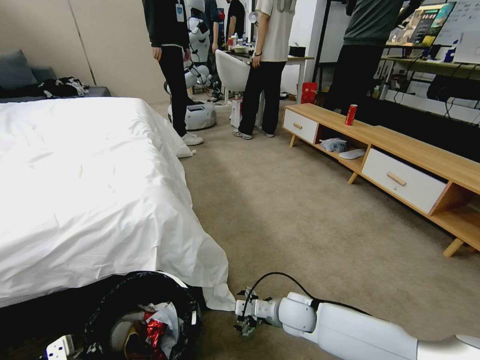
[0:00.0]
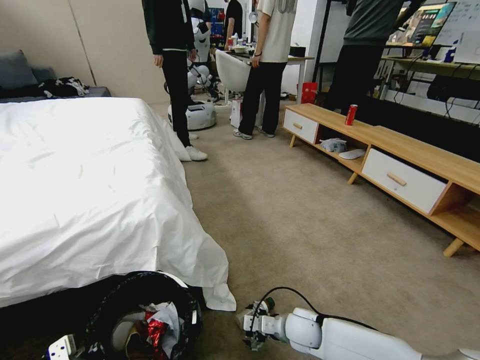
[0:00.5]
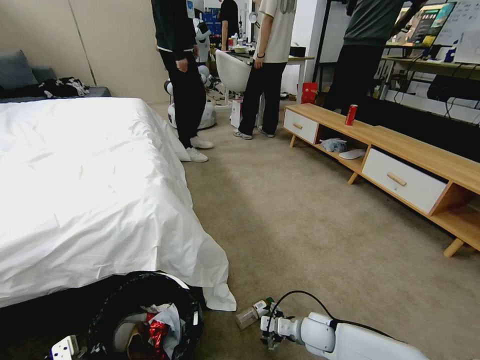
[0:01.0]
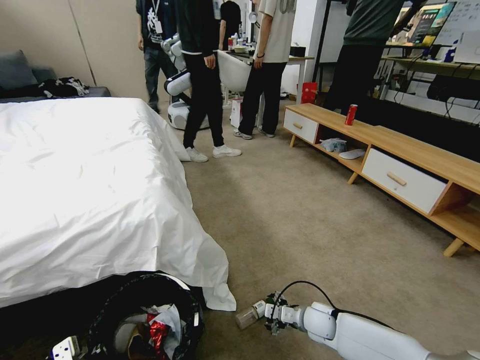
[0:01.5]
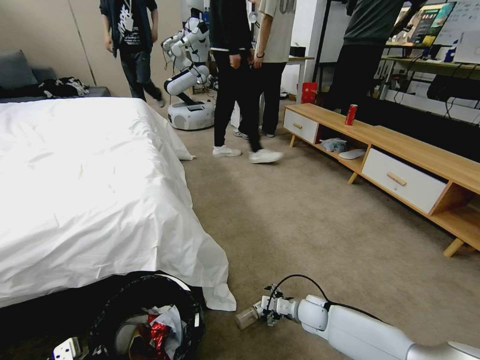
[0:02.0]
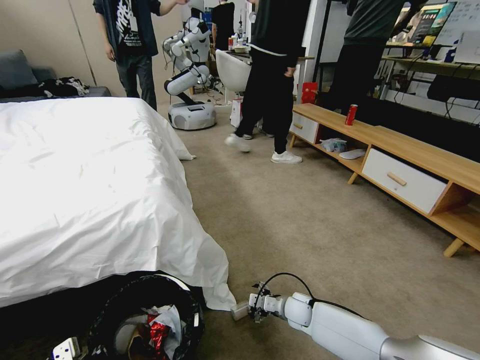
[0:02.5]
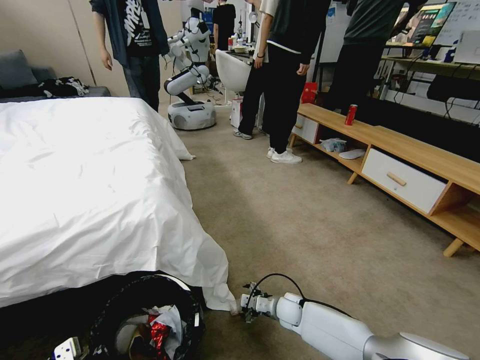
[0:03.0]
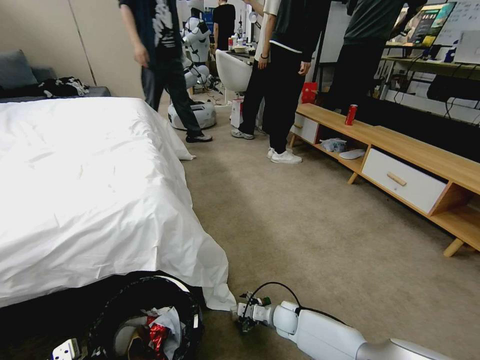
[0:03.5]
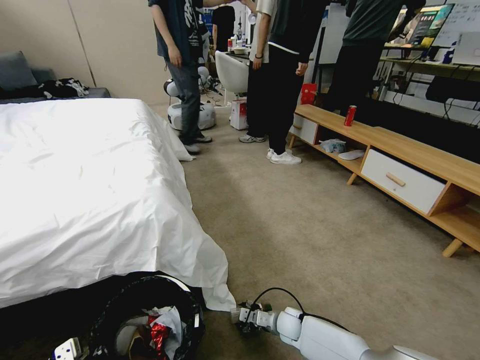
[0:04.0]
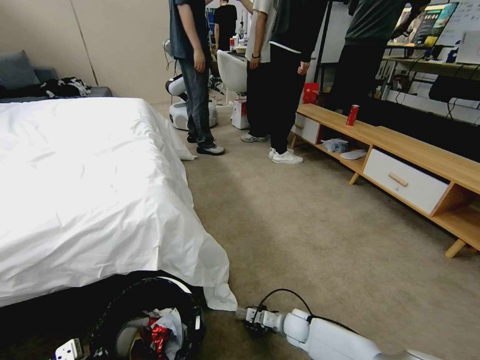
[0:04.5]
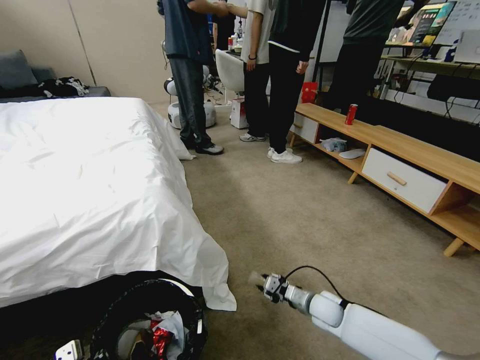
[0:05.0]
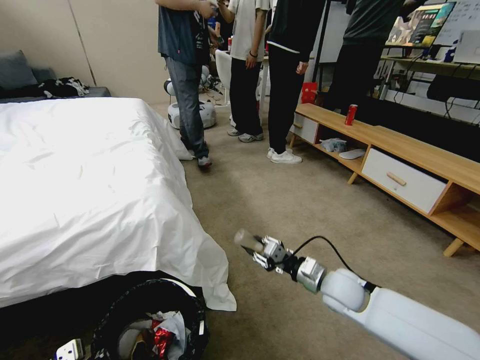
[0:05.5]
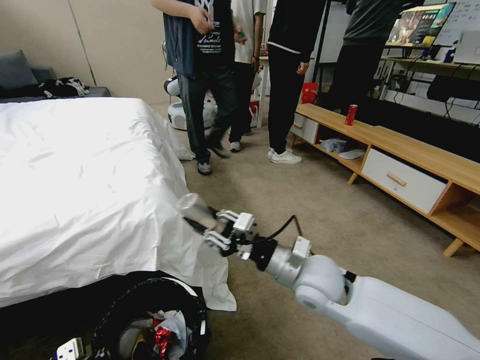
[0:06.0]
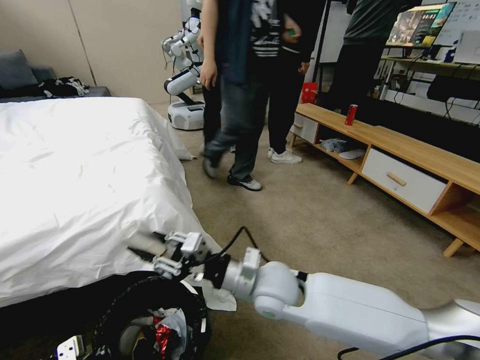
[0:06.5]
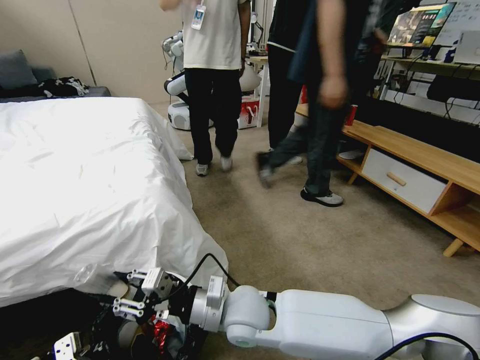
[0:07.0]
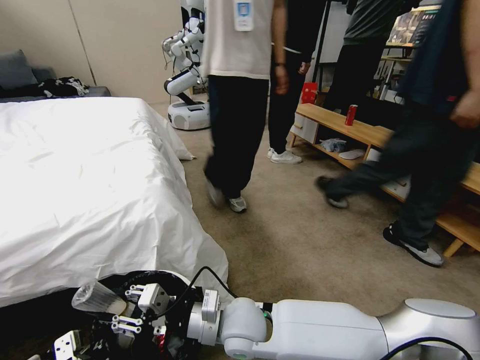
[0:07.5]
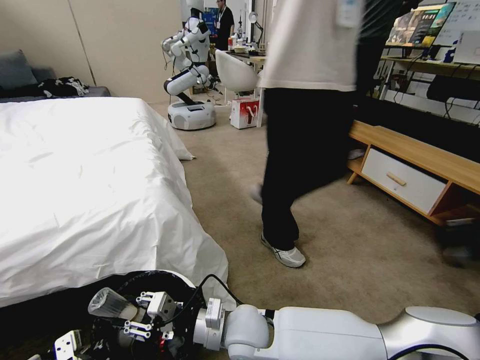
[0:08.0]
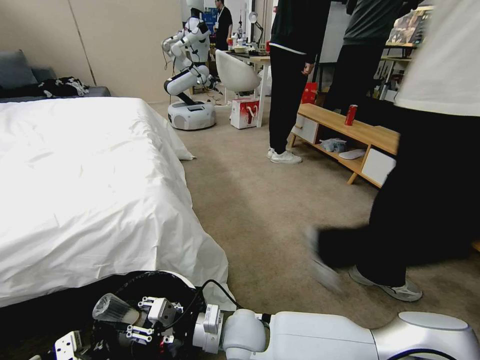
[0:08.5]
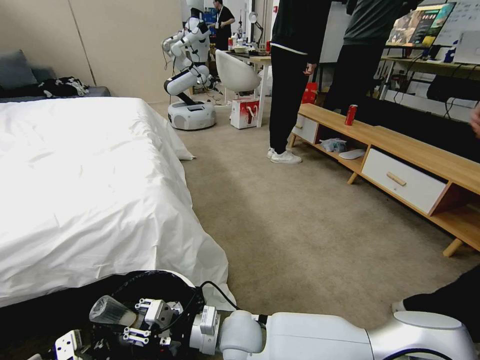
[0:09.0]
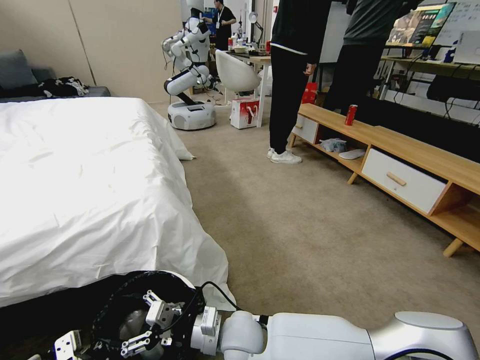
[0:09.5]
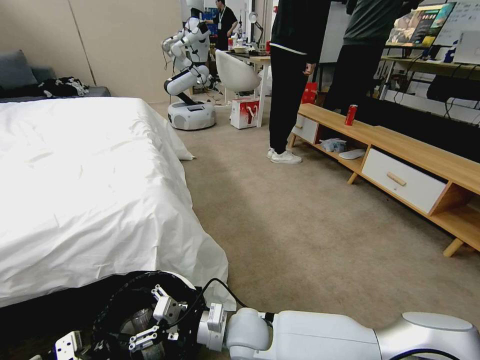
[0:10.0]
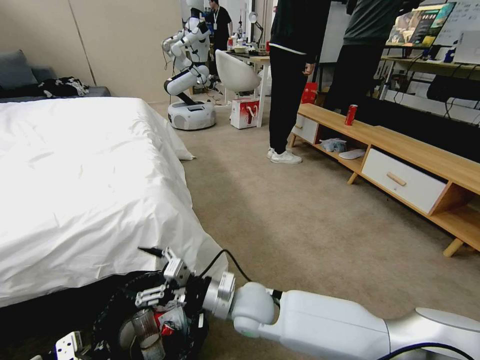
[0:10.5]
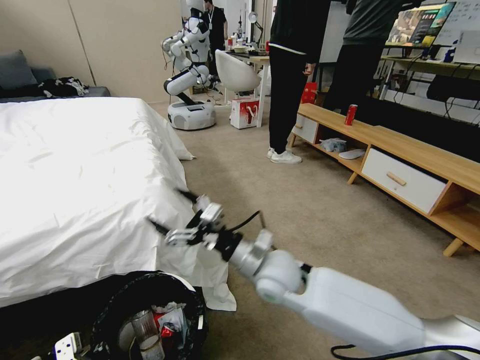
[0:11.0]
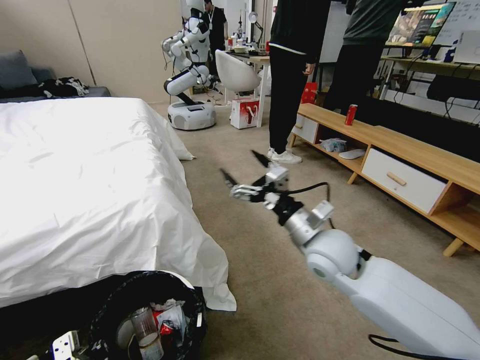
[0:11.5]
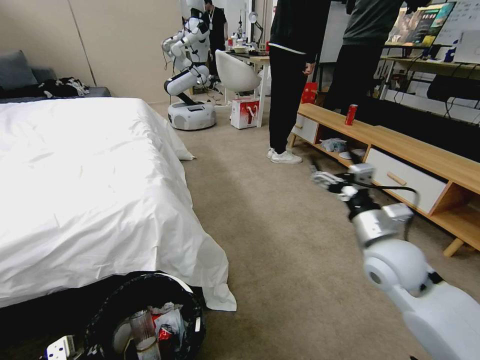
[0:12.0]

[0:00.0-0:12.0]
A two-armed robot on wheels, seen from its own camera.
Task of the whole recording: Pick up the trash bin, then pick up the garbage from the floor and place it into the trash bin.
0:00.0 to 0:02.0: The right gripper shifts roughly 10 cm to the right and downward.
0:02.0 to 0:04.0: The right gripper heads downward and to the left, covering approximately 10 cm, and closes up.
0:04.0 to 0:06.0: The right gripper goes approximately 35 cm upward.
0:06.0 to 0:08.0: The right gripper is displaced to the left and downward by about 20 cm.
0:08.0 to 0:10.0: The right gripper opens.
0:10.0 to 0:12.0: The right gripper heads to the right and upward, covering roughly 30 cm.

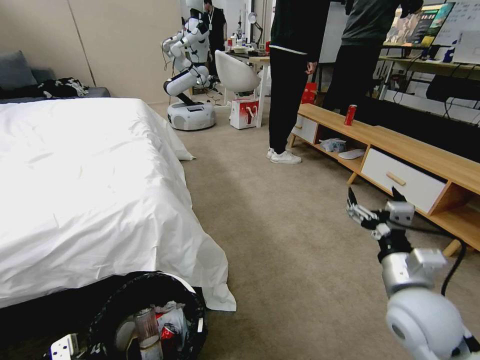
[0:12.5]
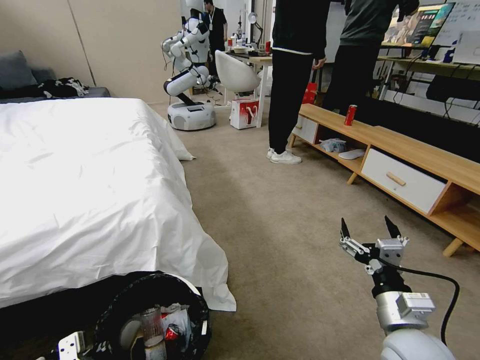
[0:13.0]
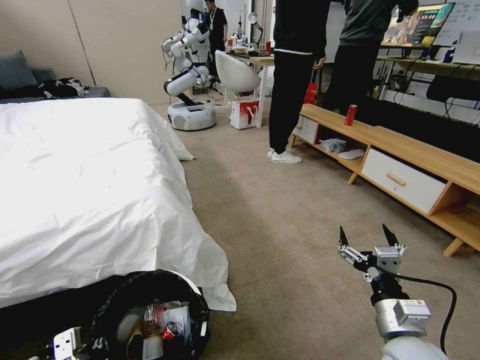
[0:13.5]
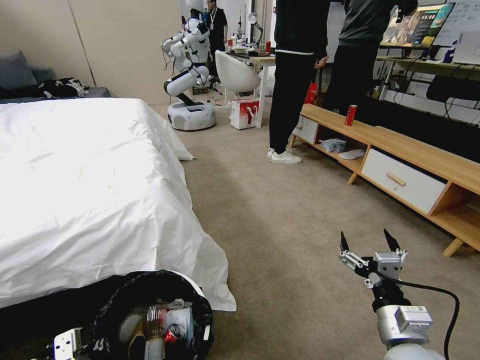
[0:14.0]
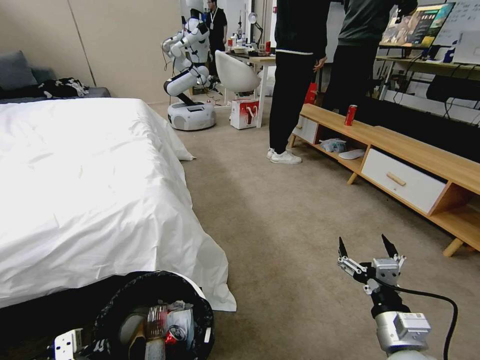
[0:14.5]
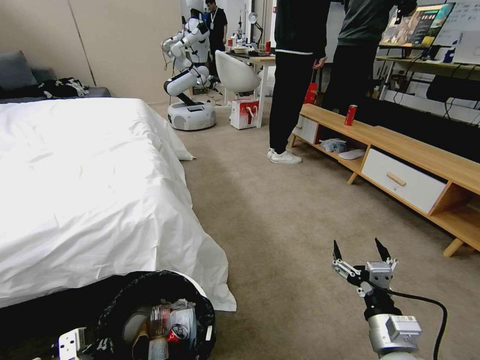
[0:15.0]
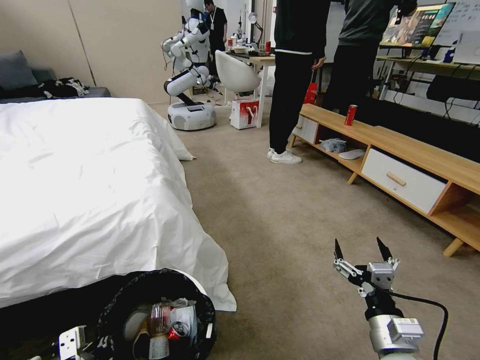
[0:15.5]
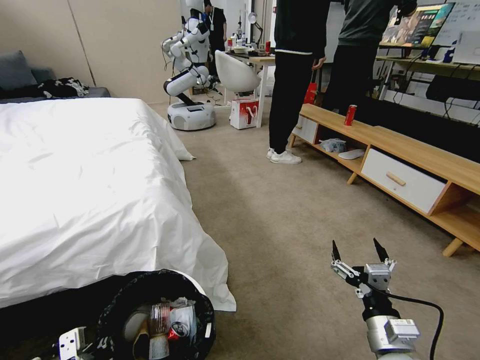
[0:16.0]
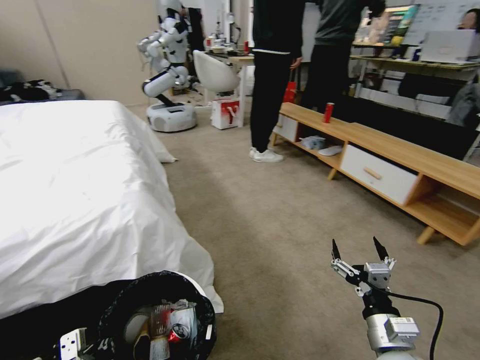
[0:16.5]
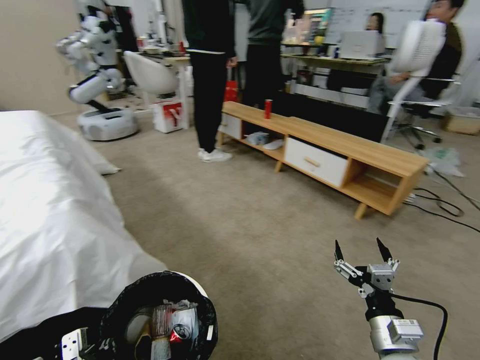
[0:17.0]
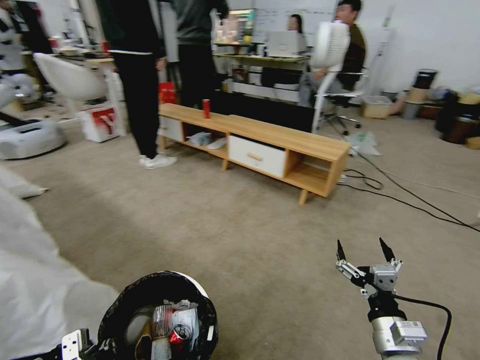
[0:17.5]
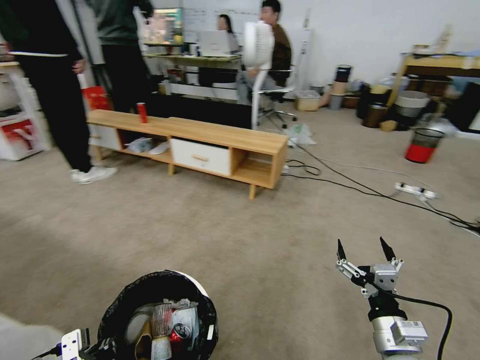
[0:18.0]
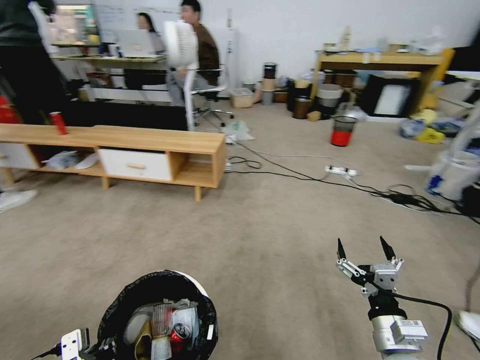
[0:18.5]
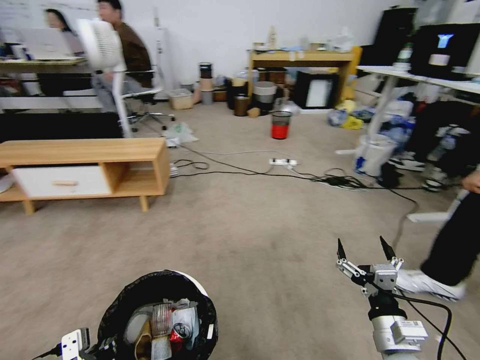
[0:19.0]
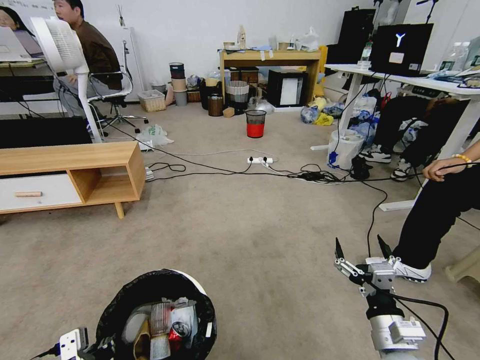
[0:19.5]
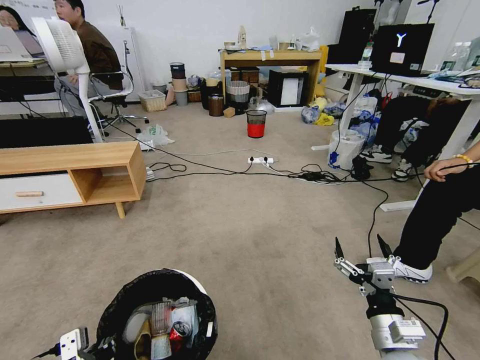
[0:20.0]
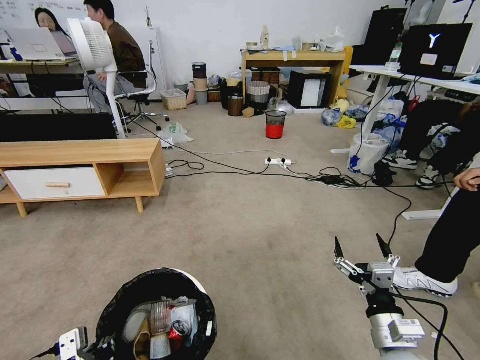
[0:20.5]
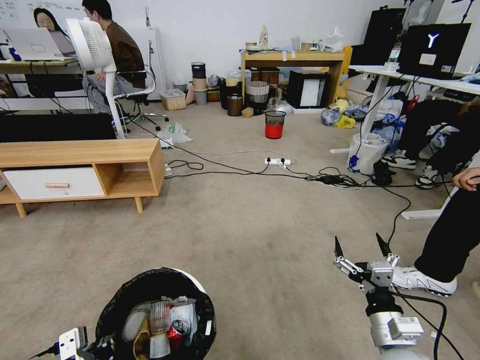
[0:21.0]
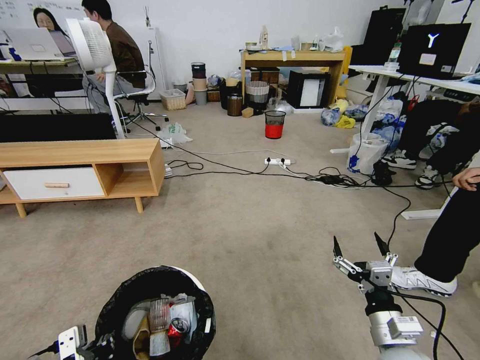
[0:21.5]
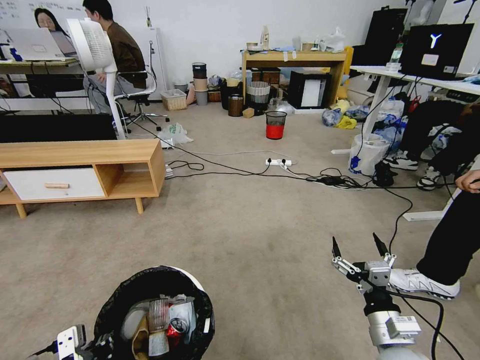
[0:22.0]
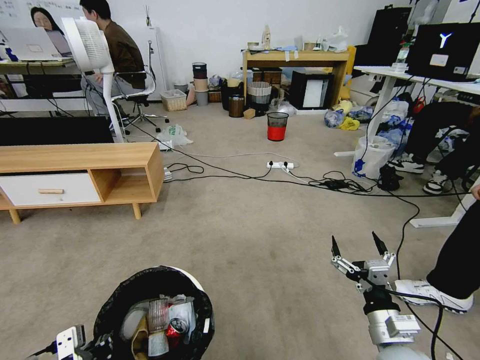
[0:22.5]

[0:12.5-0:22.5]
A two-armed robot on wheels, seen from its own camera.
Task of the whole recording: Pick up the trash bin, then pick up the garbage from the floor and place it into the trash bin.
0:12.5 to 0:14.5: The right gripper is displaced downward and backward by approximately 10 cm.

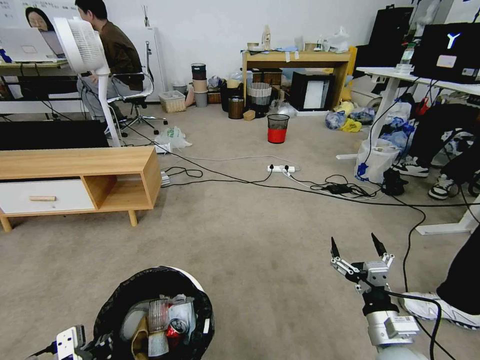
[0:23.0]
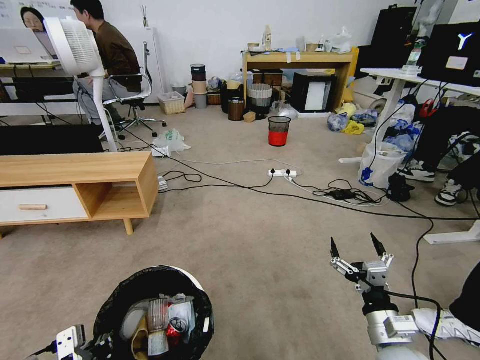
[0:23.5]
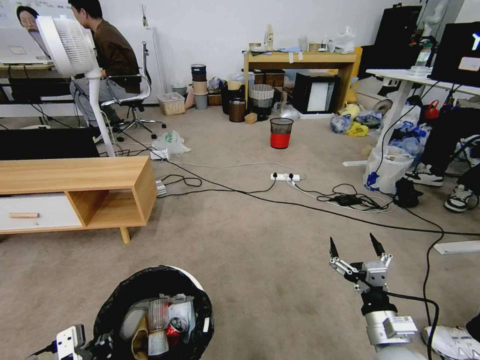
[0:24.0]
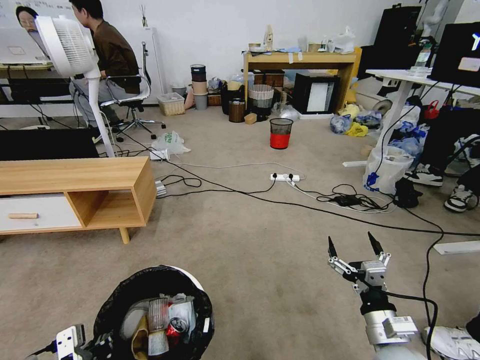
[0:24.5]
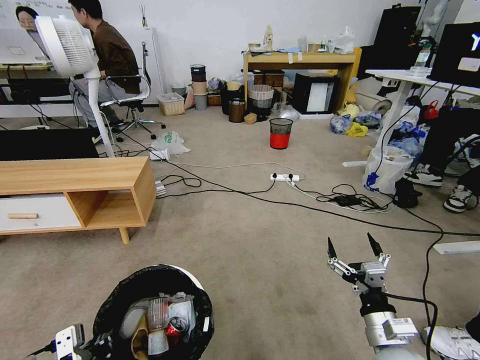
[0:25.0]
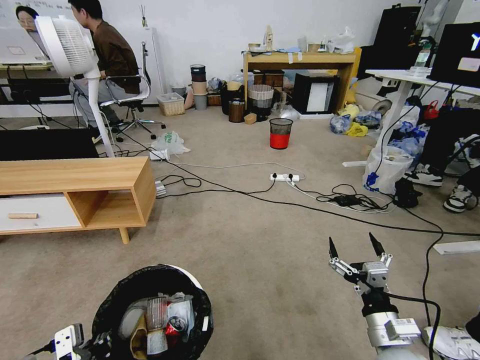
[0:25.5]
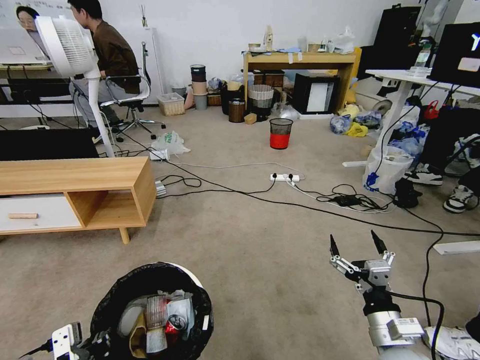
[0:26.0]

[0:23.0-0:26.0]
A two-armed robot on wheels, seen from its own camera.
Task of the whole recording: Pick up the trash bin, then pick up the garbage from the floor and place it into the trash bin.
0:24.5 to 0:26.0: The grippers make only small movements.
